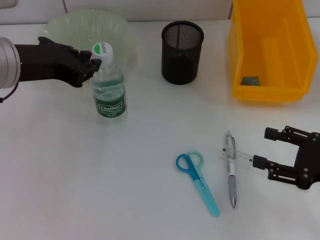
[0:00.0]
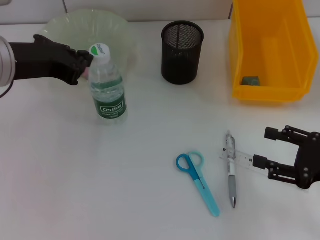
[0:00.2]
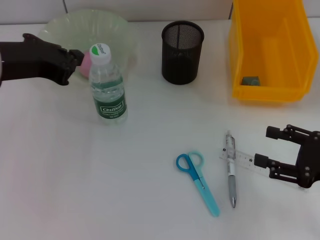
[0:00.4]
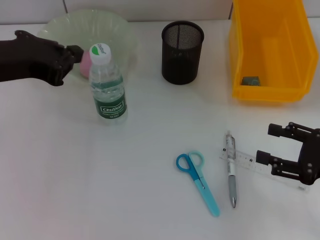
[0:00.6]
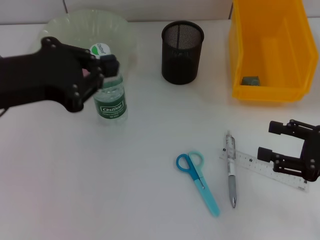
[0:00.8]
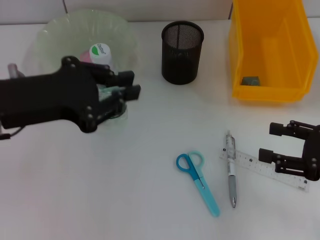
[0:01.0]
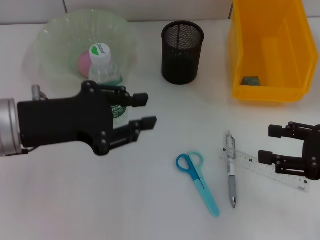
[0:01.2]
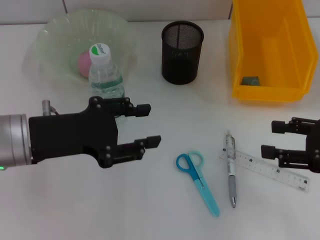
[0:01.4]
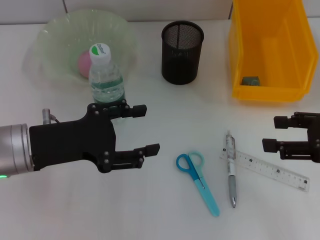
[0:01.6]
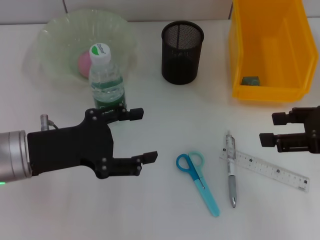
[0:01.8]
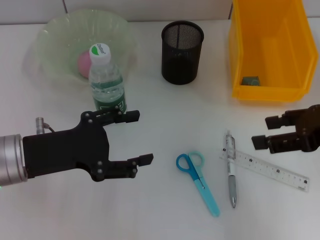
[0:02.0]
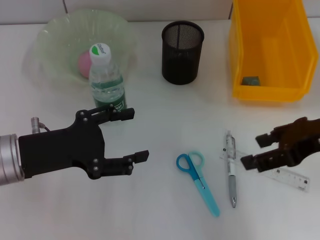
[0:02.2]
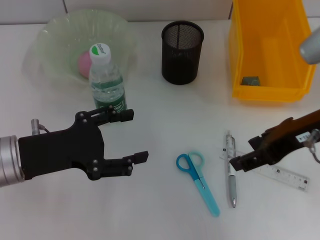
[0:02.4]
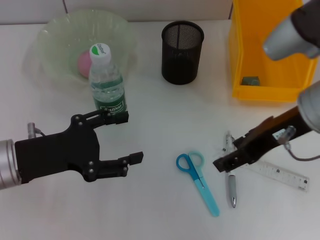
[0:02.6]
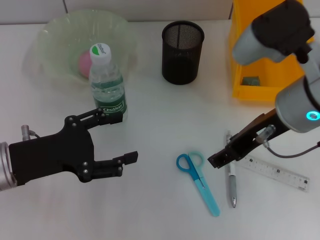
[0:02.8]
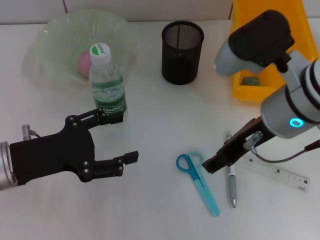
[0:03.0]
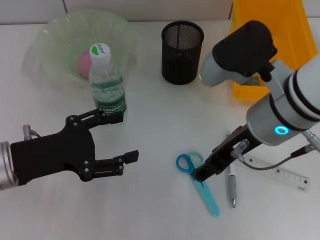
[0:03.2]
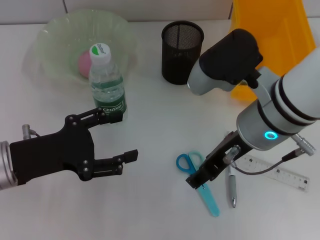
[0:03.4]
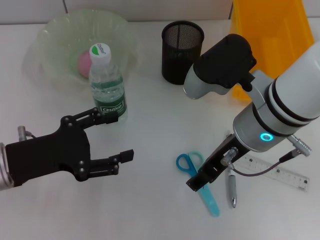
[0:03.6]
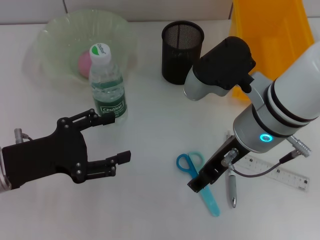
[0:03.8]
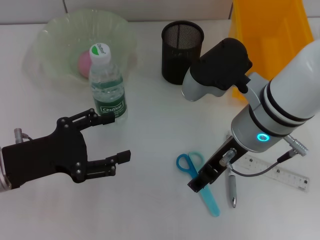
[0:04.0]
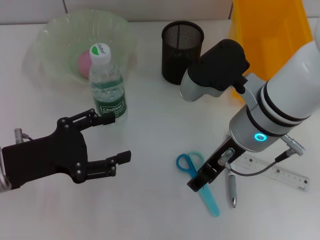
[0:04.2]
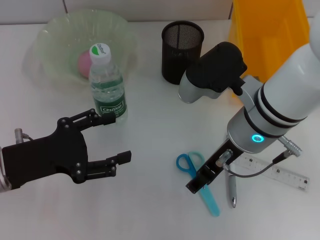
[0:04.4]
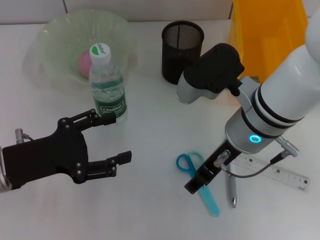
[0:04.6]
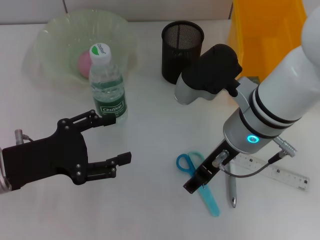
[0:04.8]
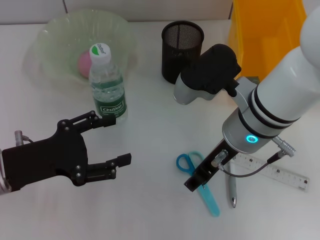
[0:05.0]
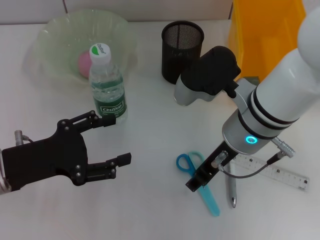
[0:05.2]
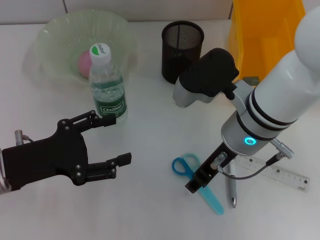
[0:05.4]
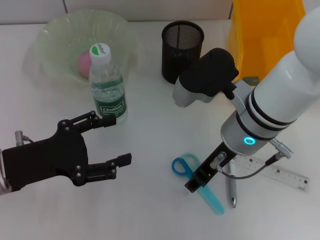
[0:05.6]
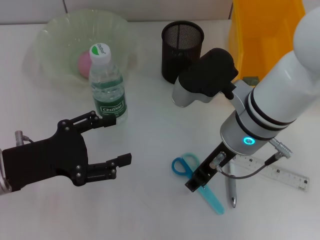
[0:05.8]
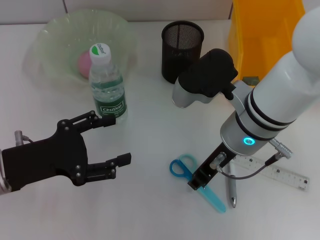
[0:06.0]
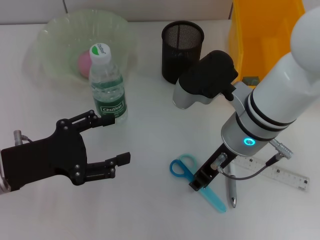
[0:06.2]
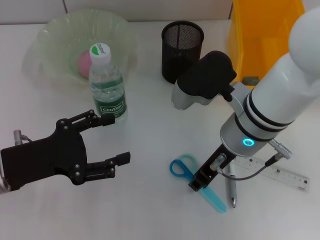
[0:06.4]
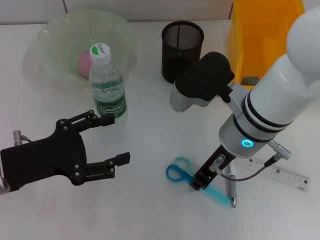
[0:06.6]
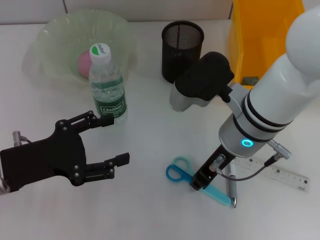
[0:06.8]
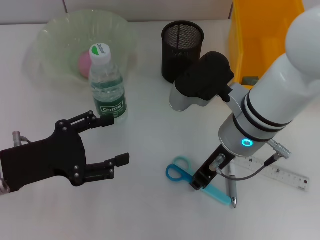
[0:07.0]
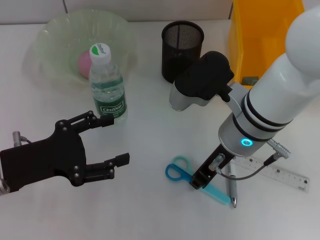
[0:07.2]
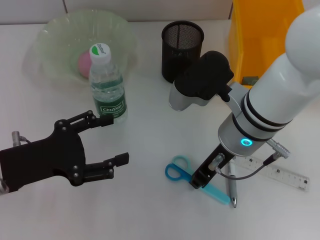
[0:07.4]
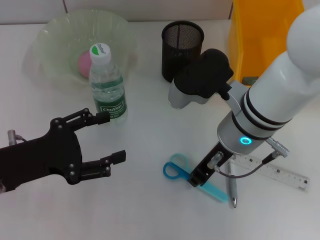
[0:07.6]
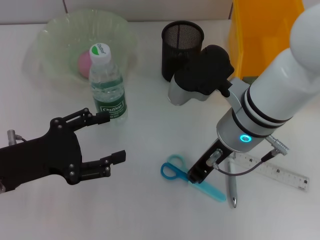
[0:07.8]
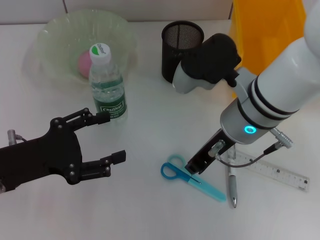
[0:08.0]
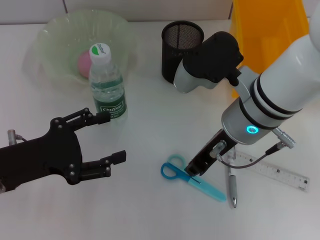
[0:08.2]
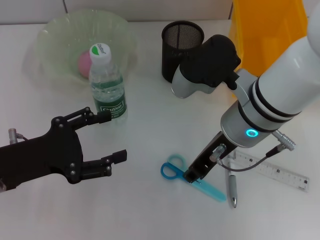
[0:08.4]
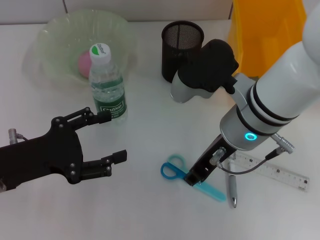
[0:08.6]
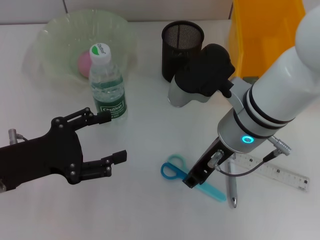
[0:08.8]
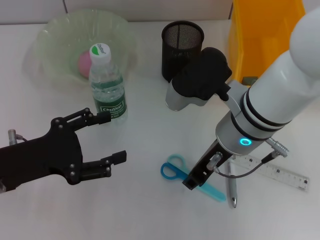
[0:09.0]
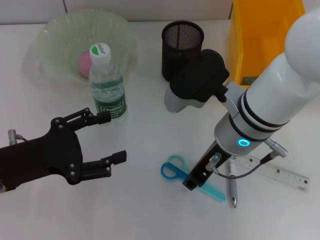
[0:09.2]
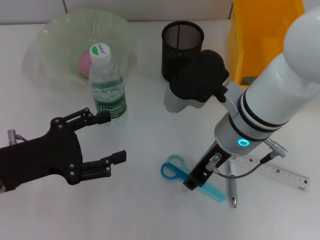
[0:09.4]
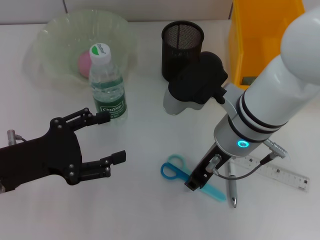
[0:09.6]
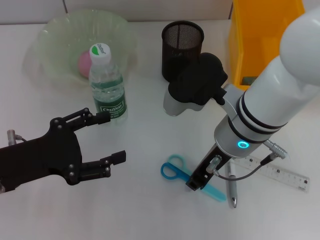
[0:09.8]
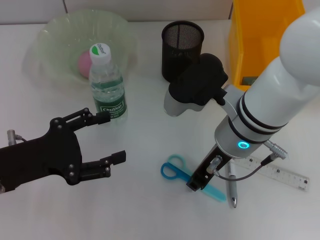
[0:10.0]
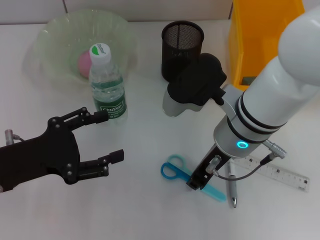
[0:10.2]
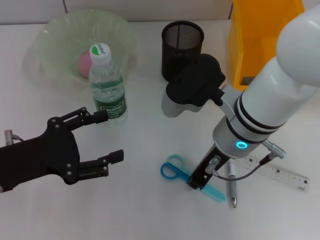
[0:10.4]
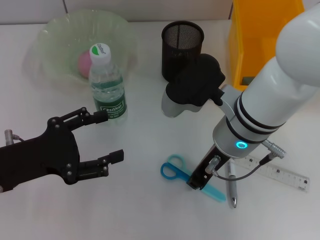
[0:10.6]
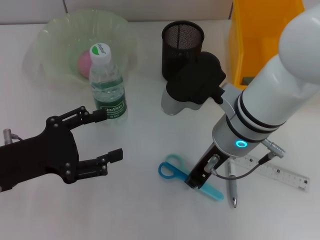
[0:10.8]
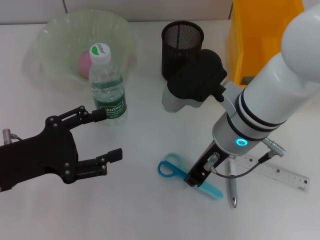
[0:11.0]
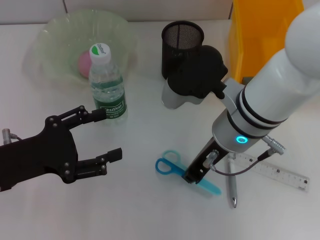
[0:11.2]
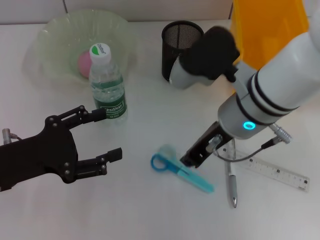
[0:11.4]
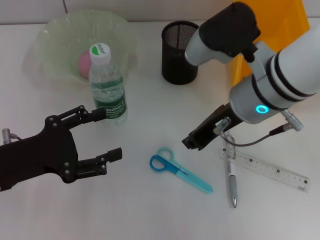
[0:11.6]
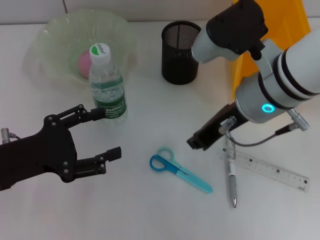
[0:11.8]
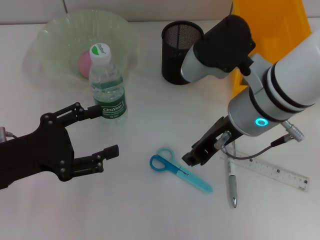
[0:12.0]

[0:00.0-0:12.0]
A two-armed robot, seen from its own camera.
0:00.0 to 0:01.6: The right gripper travels upward by about 10 cm, while the left gripper travels downward and backward by roughly 10 cm, and closes, then opens again.
0:01.6 to 0:03.0: The right gripper goes approximately 15 cm to the left, while the left gripper opens.
0:03.0 to 0:04.4: The right gripper moves some 5 cm.
0:04.4 to 0:06.0: The right gripper closes its fingers.
0:06.0 to 0:07.6: The right gripper closes up.
0:07.6 to 0:09.0: The right gripper opens up.
0:09.0 to 0:10.4: The two grippers keep their place.

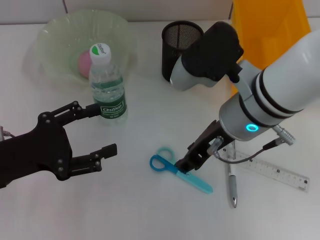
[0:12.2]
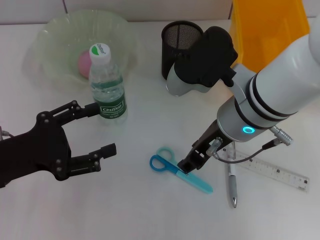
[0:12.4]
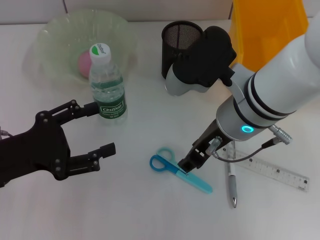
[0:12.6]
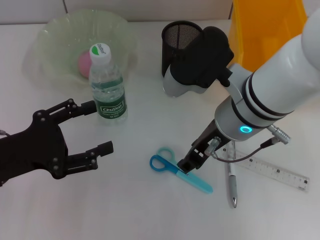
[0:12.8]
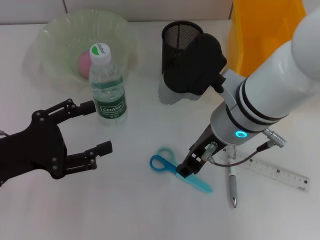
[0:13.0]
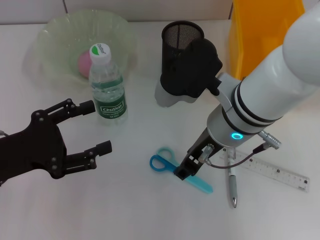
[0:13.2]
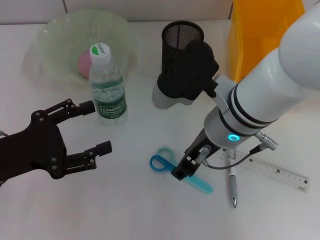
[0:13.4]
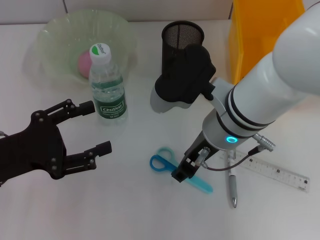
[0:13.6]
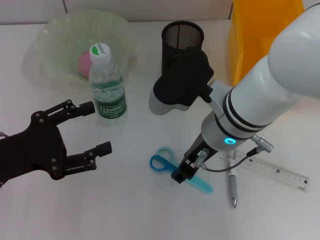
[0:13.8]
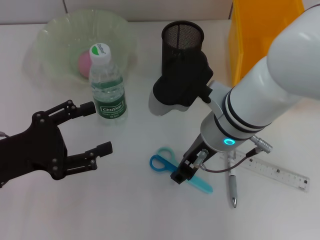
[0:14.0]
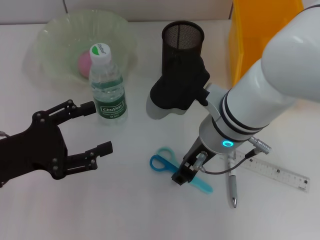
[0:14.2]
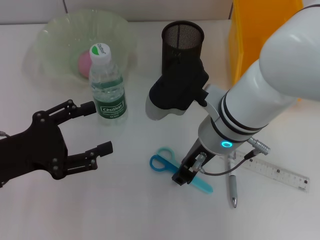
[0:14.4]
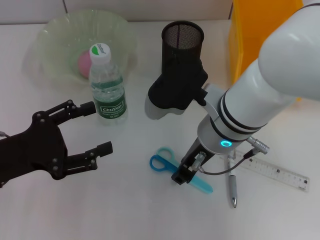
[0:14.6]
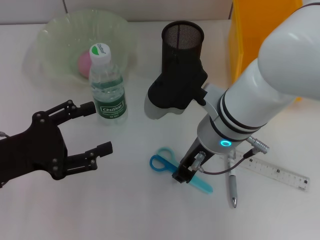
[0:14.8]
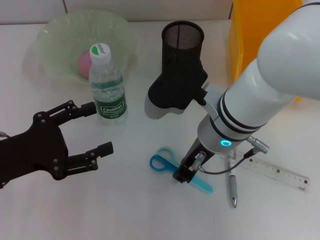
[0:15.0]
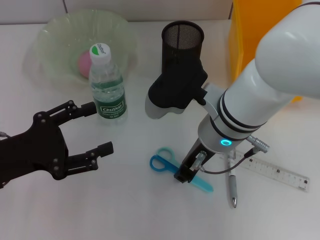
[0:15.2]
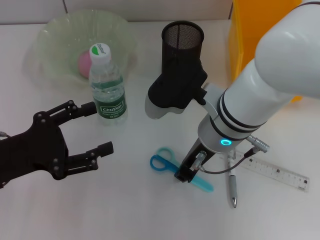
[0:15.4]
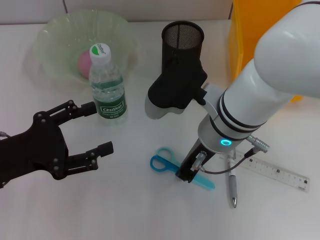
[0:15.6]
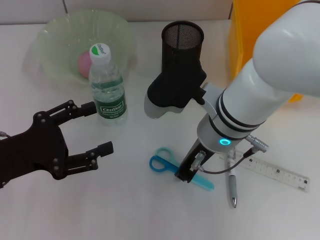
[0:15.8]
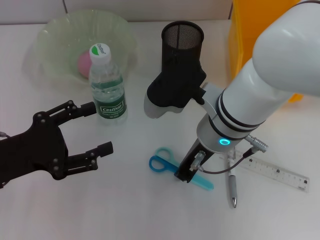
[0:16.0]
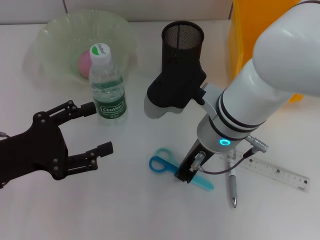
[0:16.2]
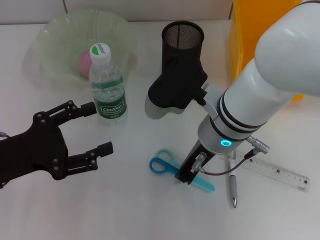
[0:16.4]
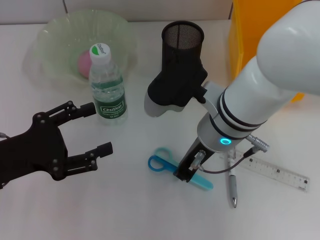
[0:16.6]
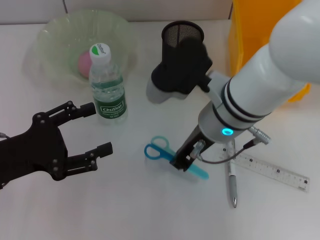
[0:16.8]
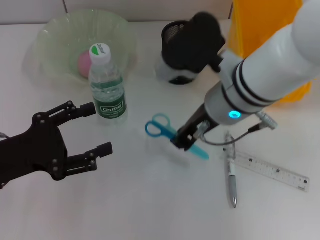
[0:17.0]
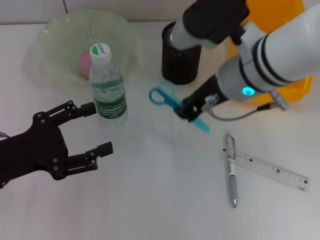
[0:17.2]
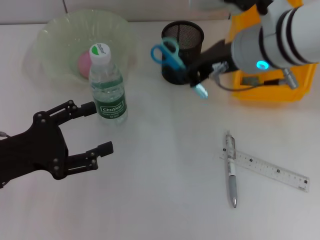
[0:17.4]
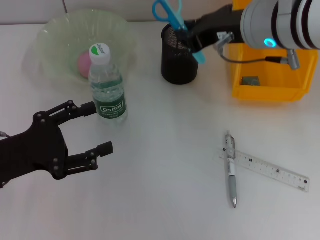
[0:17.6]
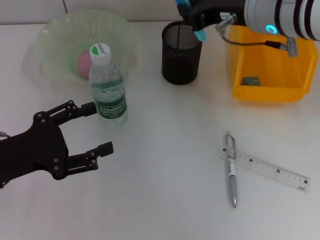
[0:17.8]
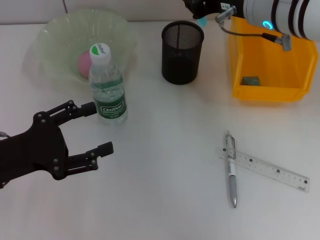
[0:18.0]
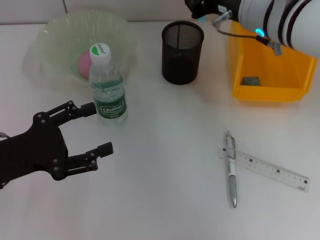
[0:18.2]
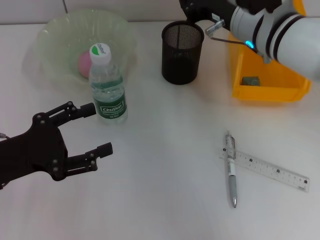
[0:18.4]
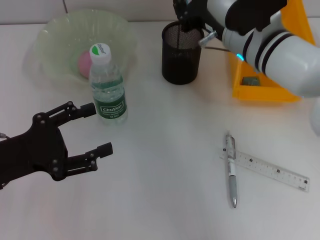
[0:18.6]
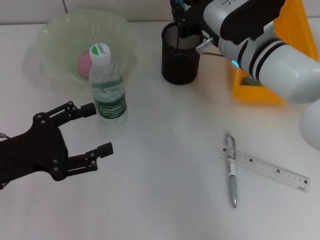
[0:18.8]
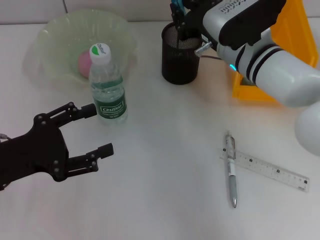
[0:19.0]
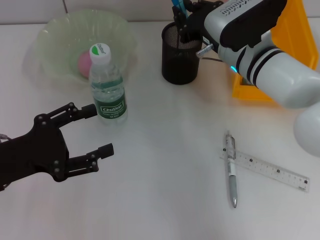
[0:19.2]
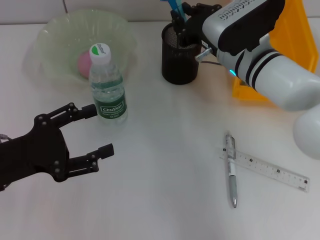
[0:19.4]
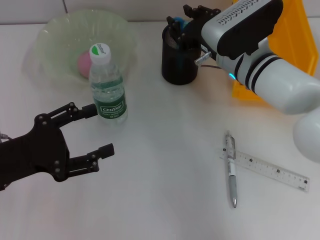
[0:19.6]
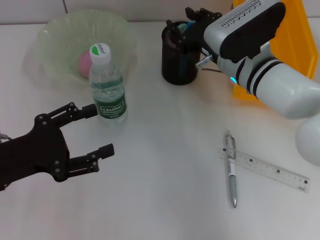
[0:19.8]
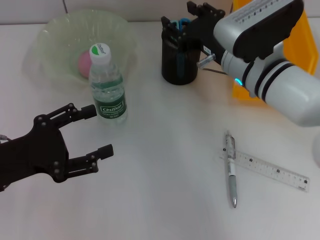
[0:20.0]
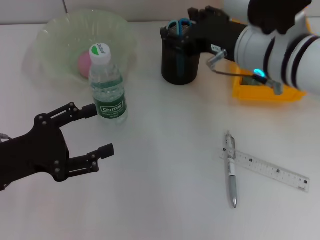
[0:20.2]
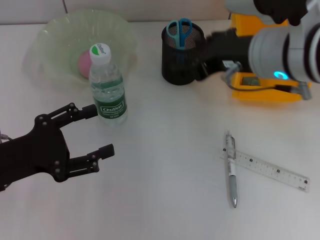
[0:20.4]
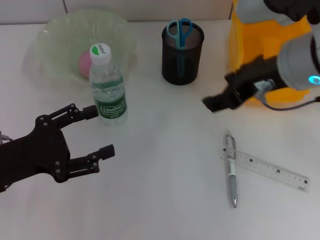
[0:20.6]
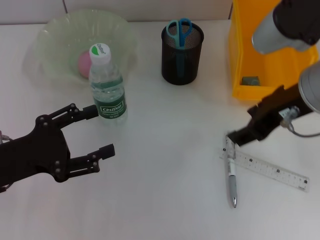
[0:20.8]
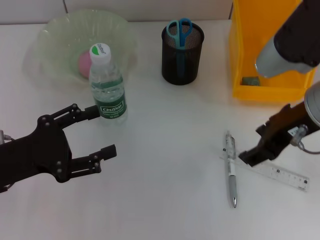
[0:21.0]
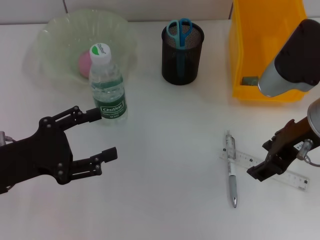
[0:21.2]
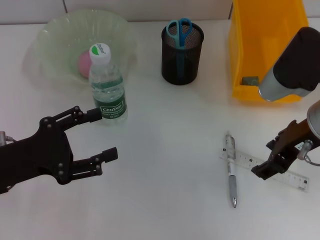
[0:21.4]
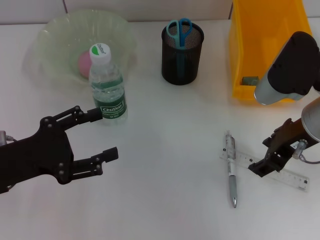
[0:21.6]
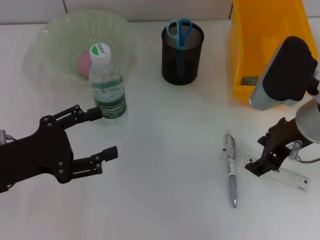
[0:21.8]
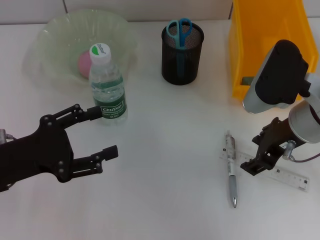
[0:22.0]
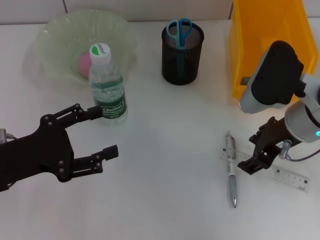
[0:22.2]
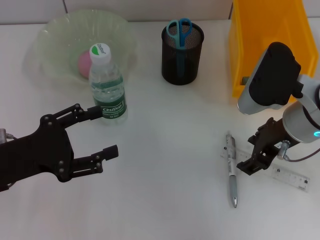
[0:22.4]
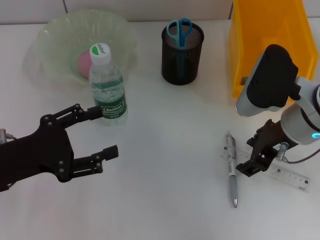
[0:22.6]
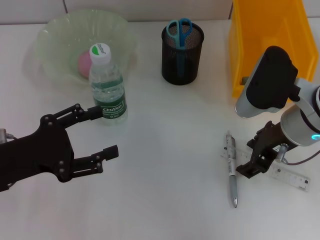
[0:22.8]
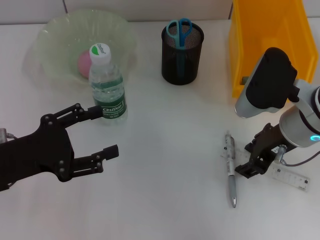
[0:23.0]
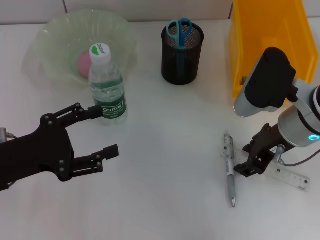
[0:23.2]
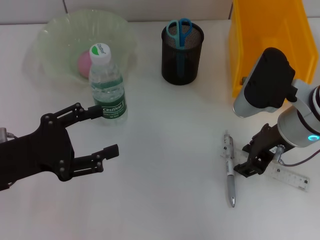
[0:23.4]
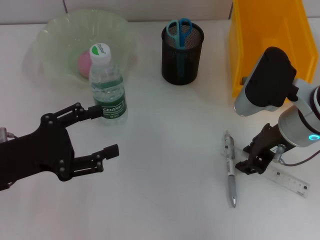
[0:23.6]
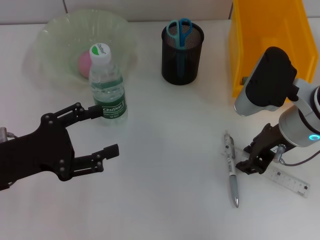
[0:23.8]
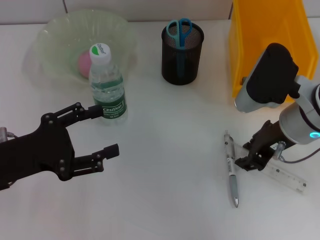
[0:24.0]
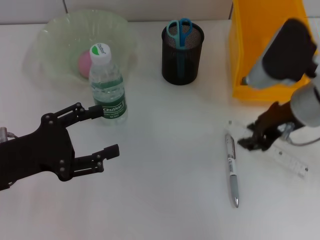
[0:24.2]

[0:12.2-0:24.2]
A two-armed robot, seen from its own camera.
Step, 0:12.2 to 0:16.4: Grab the blue scissors with the right hand.
Step, 0:16.6 to 0:19.8: Place the blue scissors into the pen holder with the right hand.
Step, 0:20.0 to 0:23.4: Grab the ruler with the right hand.
0:12.2 to 0:13.8: The right gripper opens.
0:13.8 to 0:15.2: The right gripper closes its fingers.
0:15.2 to 0:16.6: The two grippers keep their place.
0:16.6 to 0:18.2: The right gripper goes roughly 10 cm forward, to the right and upward.
0:18.2 to 0:19.8: The right gripper heads downward, covering approximately 10 cm, and opens its fingers.
0:19.8 to 0:21.2: The right gripper is displaced backward, upward and to the right by roughly 15 cm, and opens its fingers.
0:21.2 to 0:22.6: The right gripper moves approximately 5 cm.
0:22.6 to 0:24.2: The right gripper closes its fingers.
